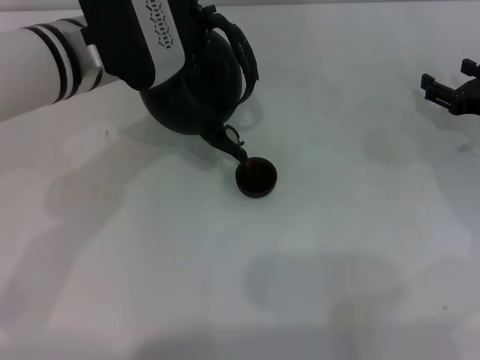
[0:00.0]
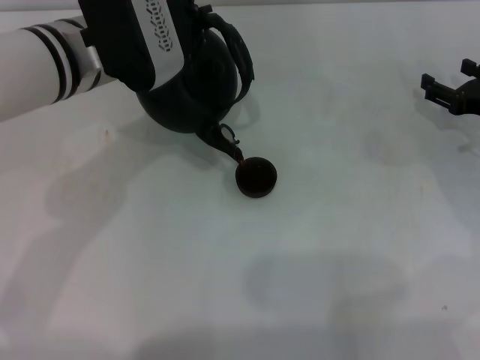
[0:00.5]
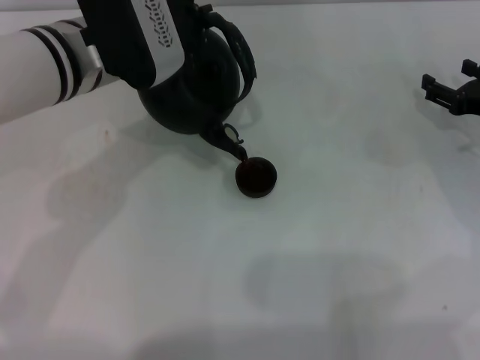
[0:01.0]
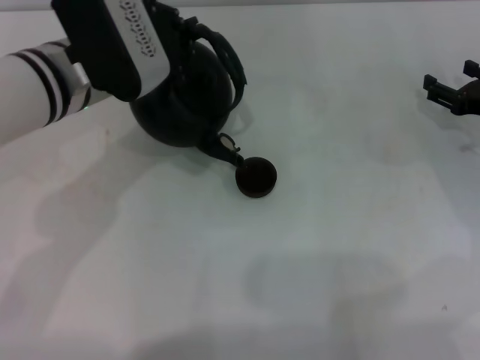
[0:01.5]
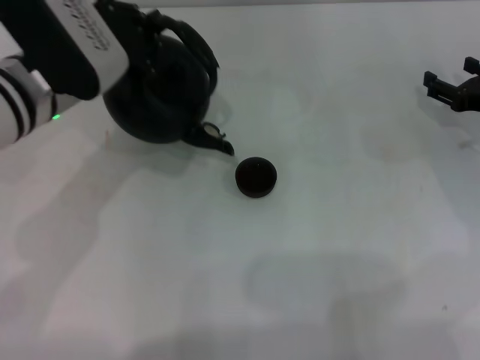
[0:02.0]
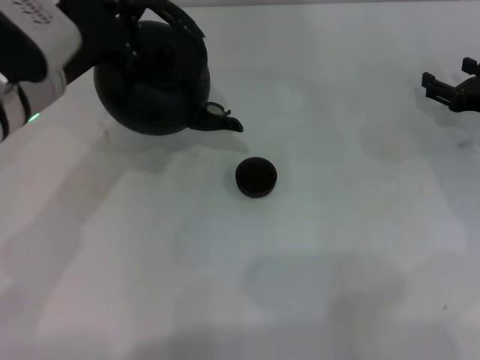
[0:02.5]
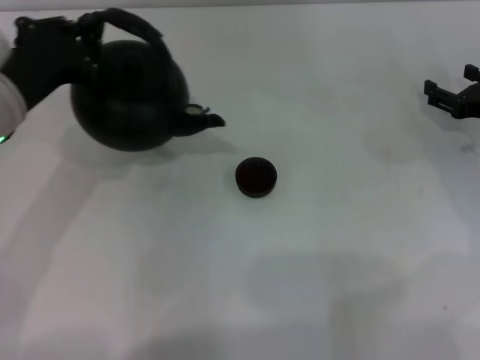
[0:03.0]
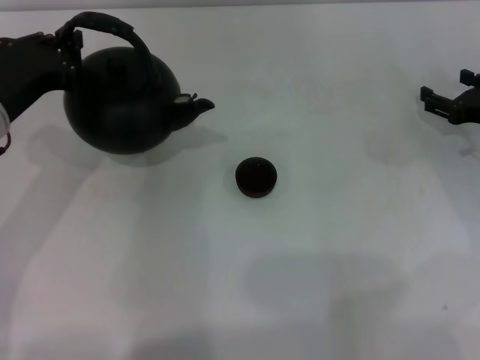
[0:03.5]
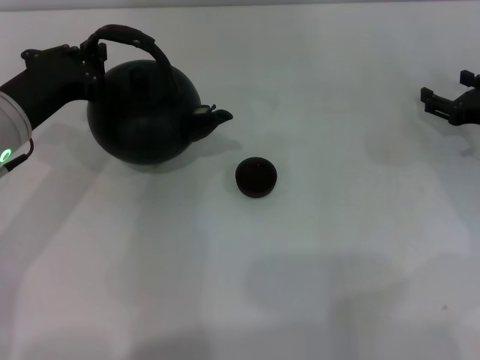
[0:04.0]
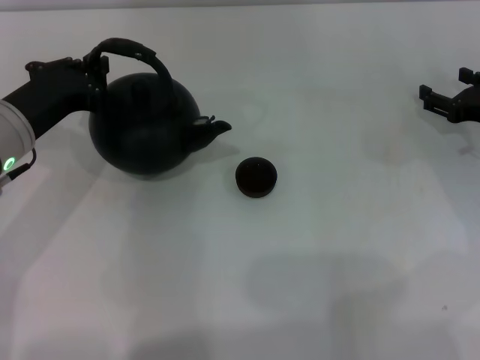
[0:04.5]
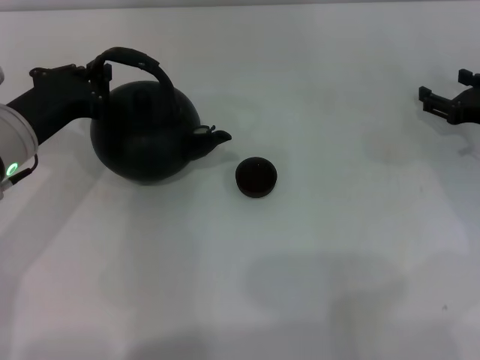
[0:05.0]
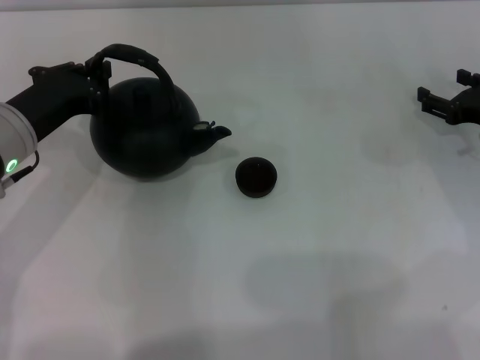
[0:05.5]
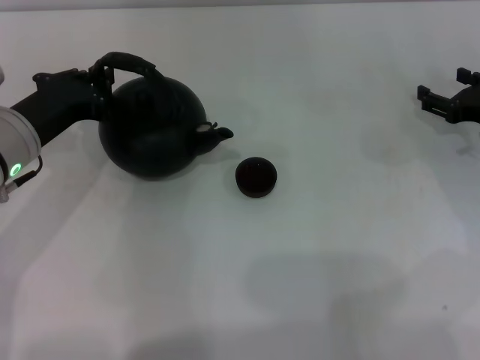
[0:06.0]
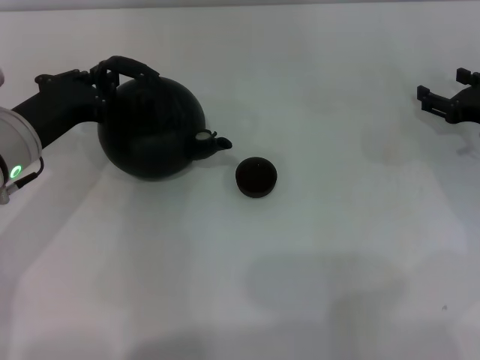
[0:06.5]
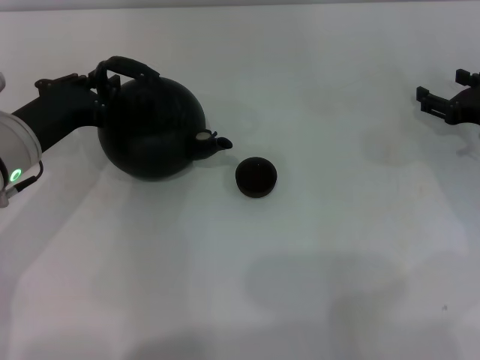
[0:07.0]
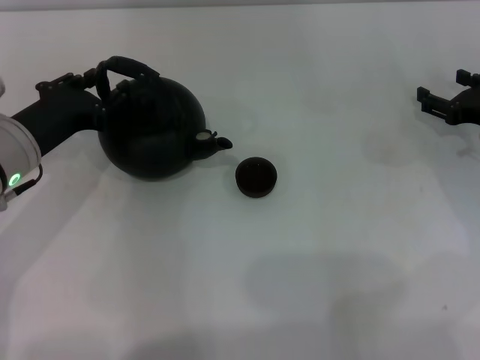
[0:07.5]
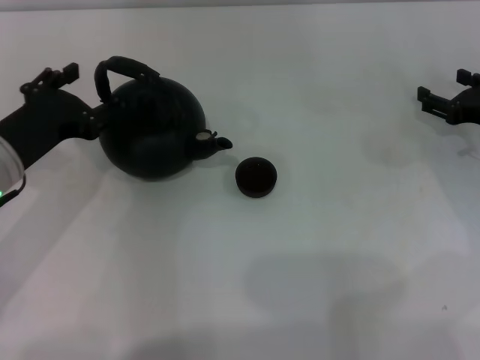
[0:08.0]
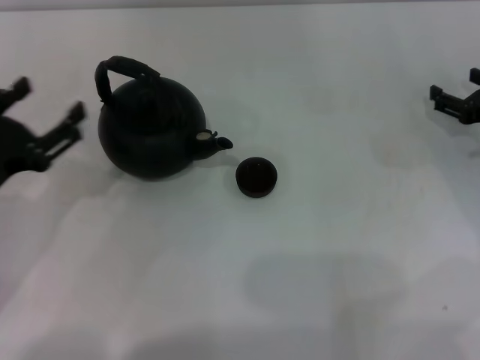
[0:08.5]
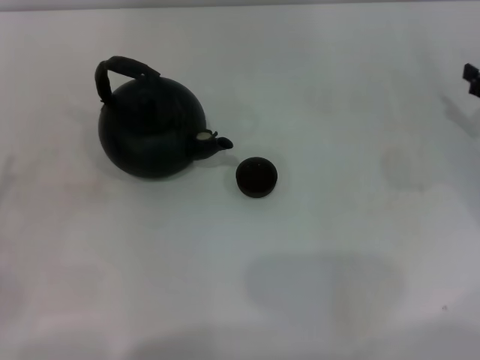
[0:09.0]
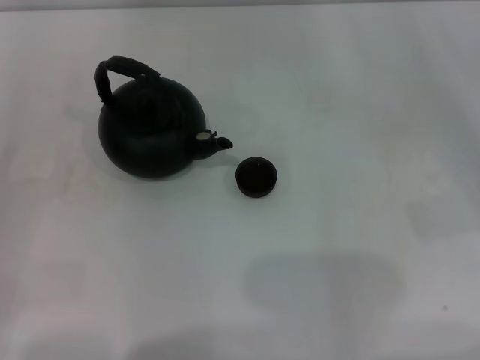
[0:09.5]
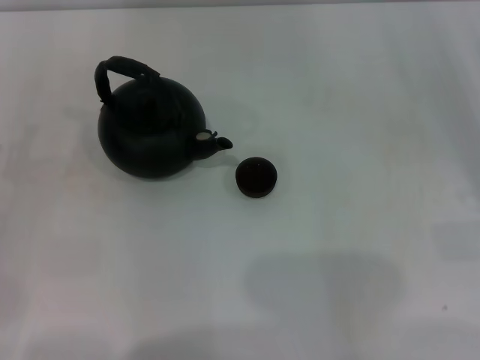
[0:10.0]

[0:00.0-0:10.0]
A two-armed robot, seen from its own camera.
Task of the whole recording: Grasp the handle of the teapot with one hand and pour tea into the teacup.
Step, 0:00.0 to 0:02.0: Pour tea into the teacup with the left gripper.
Step, 0:02.5 to 0:08.0: Put down the teapot with the left gripper.
0:00.0 to 0:02.0: There are only small adjustments of the grippers.
0:02.0 to 0:04.0: The left gripper is displaced to the left by approximately 5 cm.
0:04.0 to 0:06.0: There are only small adjustments of the grippers.
0:06.0 to 0:08.0: The left gripper opens its fingers.
0:08.0 to 0:10.0: The left gripper heads to the left and backward, covering approximately 15 cm; the right gripper travels backward and to the right by about 15 cm.
